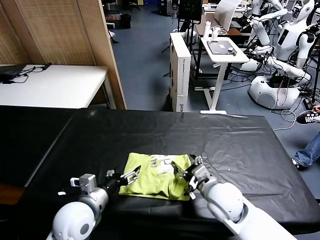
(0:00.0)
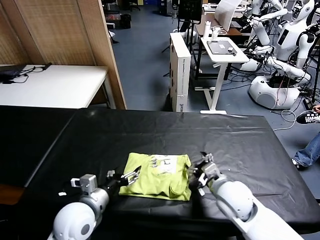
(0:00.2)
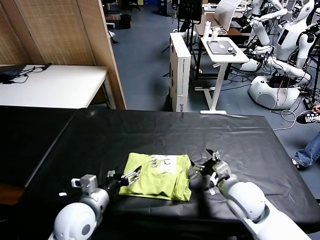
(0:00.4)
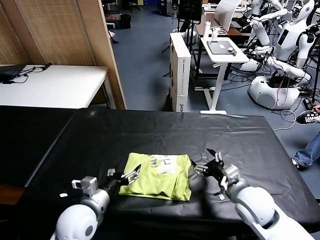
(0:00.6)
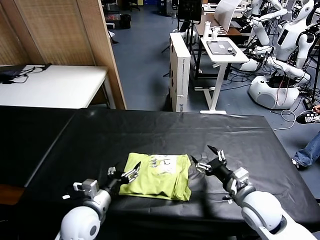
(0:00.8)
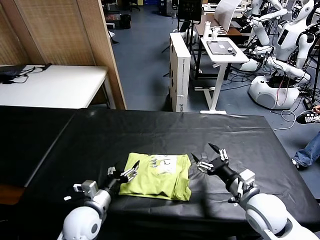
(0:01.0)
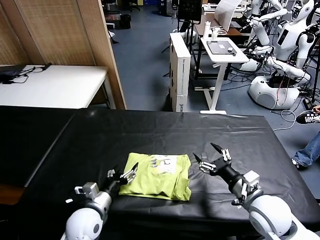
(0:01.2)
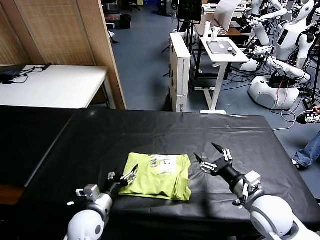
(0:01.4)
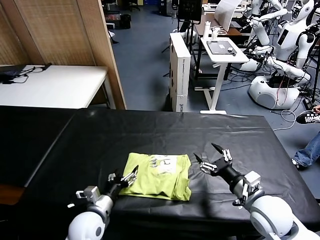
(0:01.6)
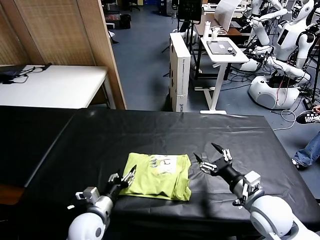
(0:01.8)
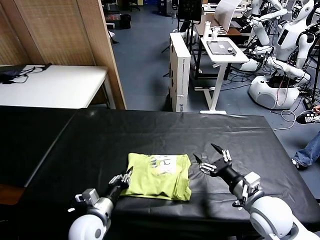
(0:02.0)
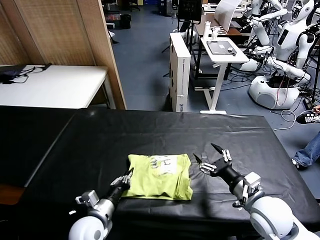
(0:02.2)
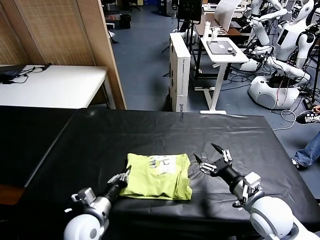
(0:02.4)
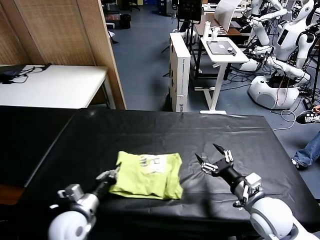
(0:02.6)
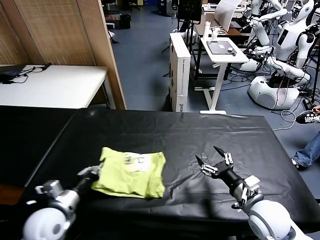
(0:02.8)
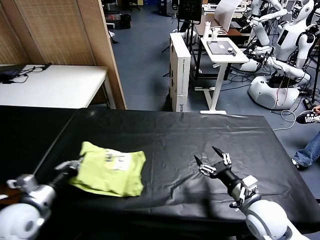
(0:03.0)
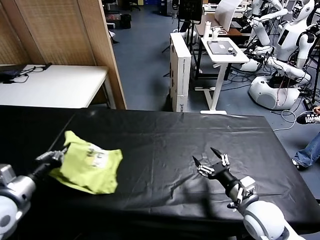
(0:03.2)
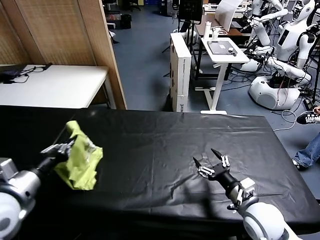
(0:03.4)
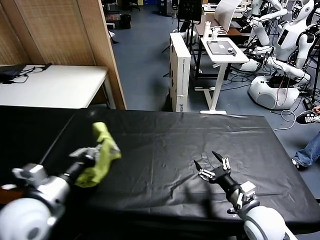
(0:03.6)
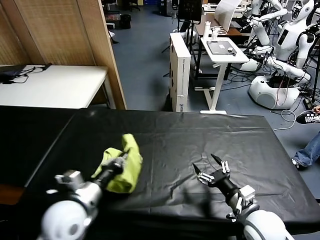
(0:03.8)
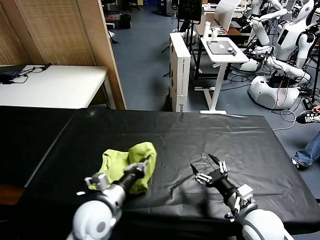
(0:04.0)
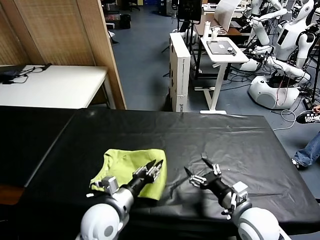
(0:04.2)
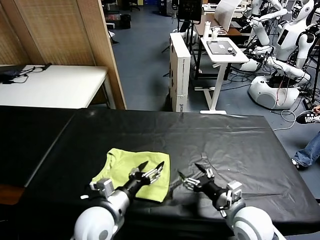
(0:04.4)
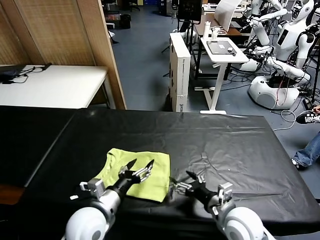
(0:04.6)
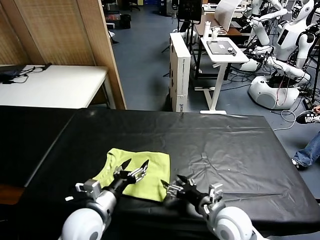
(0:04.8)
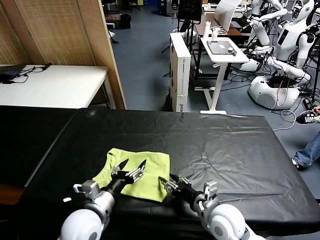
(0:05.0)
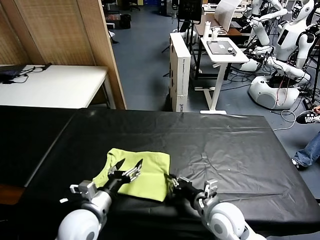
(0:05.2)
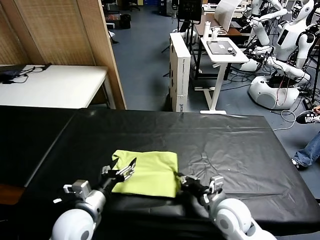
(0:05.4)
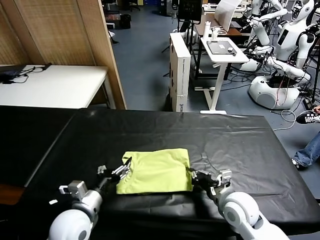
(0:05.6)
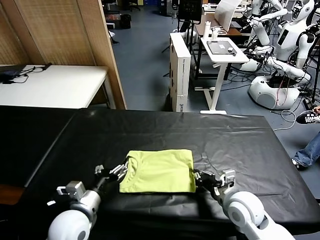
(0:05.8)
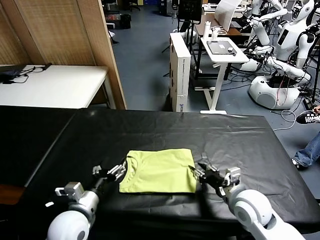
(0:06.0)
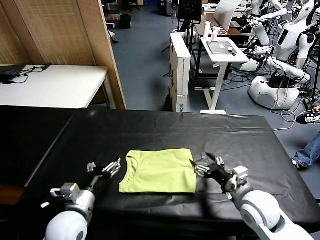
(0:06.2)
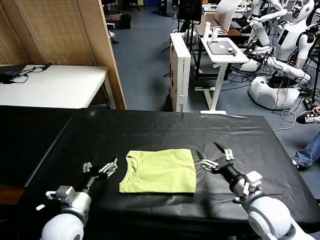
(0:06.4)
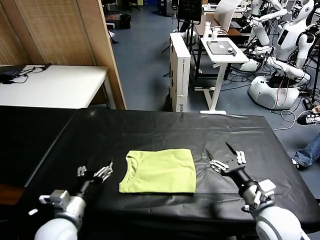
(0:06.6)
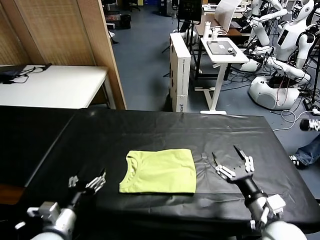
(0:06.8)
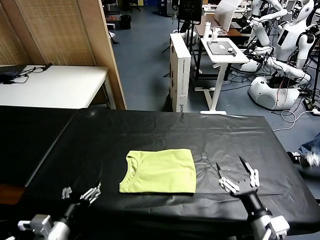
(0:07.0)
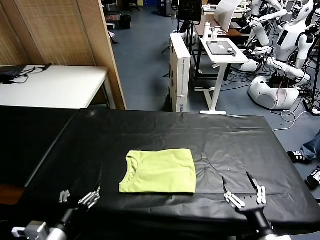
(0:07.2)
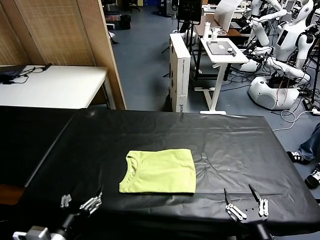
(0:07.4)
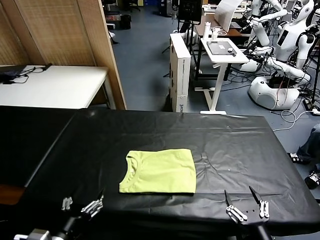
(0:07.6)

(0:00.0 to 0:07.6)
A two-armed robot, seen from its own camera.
Task of the whole recording: fold and organize the clothes.
Step, 0:00.0 - 0:04.4: Flip the folded clothes over with left gripper.
Step, 0:04.6 - 0:06.0: Drag the clothes to the center of the table.
0:00.0 - 0:01.6: The left gripper heads downward, covering some 10 cm. The right gripper heads to the right, covering roughly 10 cm.
0:01.6 - 0:03.0: The left gripper moves to the left and upward, some 20 cm, and closes.
0:03.0 - 0:04.6: The right gripper moves to the left, roughly 5 cm; the left gripper shifts approximately 15 cm to the right, and opens.
0:04.6 - 0:06.0: The left gripper moves to the left, some 5 cm. The right gripper ends up approximately 5 cm from where it was, and closes its fingers.
0:06.0 - 0:07.6: The left gripper shifts roughly 10 cm backward, while the right gripper is displaced backward by about 20 cm, and opens up.

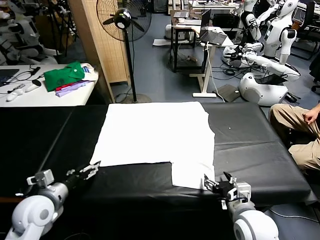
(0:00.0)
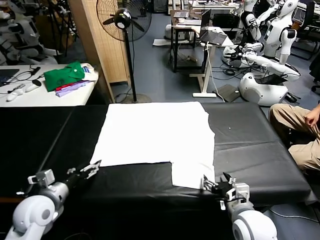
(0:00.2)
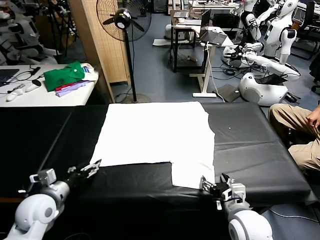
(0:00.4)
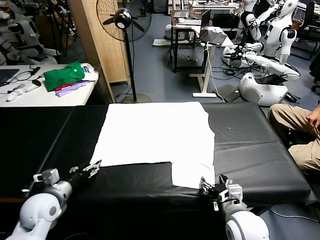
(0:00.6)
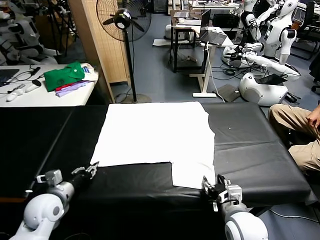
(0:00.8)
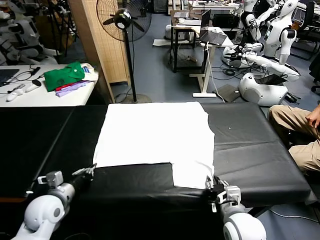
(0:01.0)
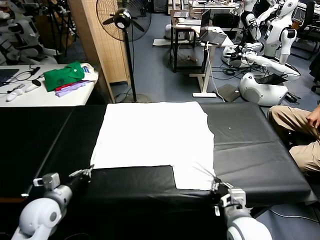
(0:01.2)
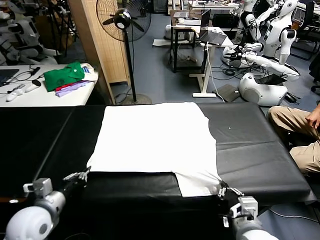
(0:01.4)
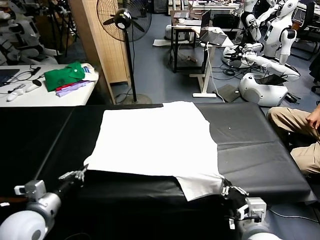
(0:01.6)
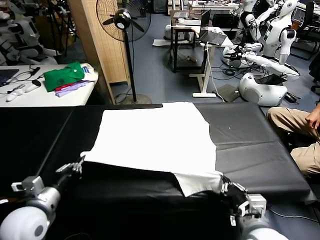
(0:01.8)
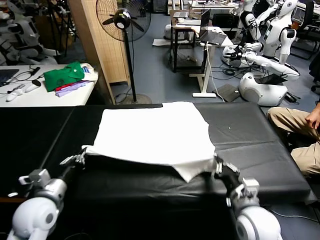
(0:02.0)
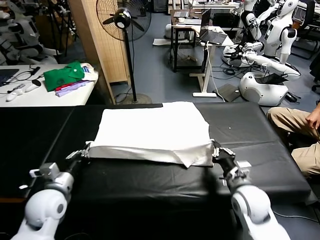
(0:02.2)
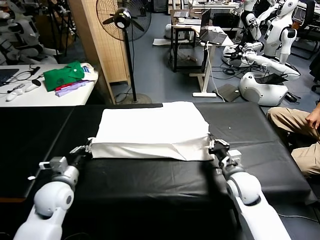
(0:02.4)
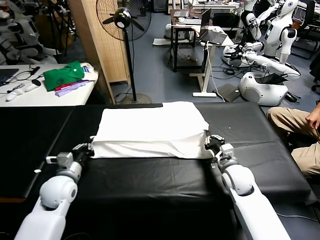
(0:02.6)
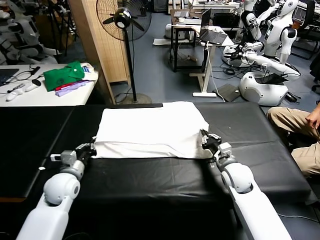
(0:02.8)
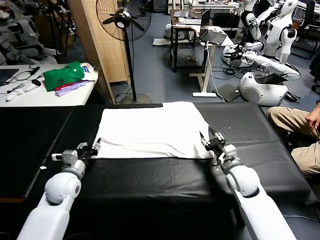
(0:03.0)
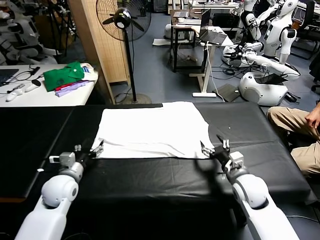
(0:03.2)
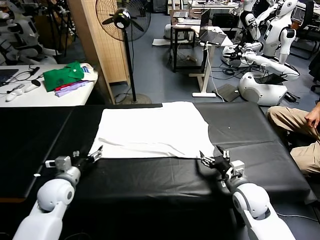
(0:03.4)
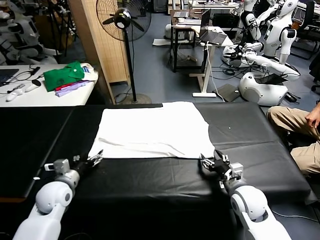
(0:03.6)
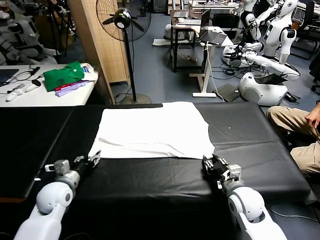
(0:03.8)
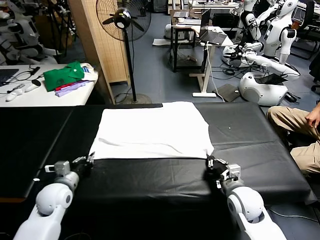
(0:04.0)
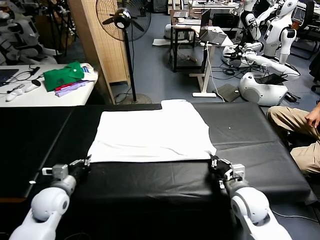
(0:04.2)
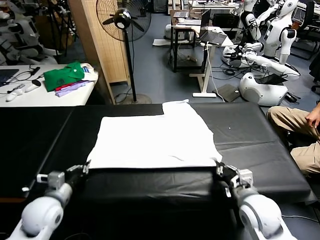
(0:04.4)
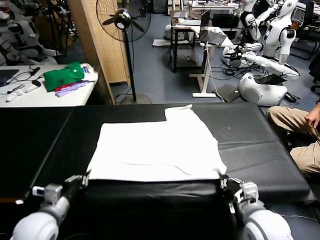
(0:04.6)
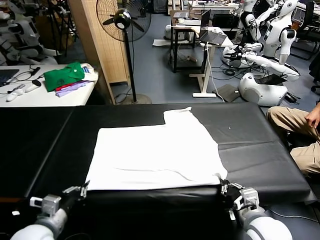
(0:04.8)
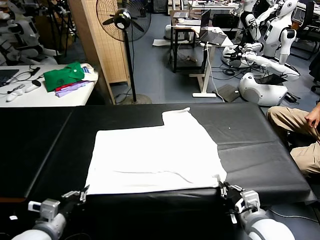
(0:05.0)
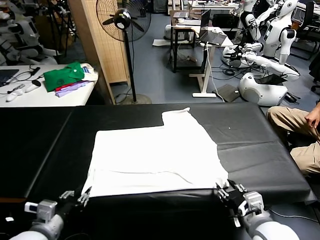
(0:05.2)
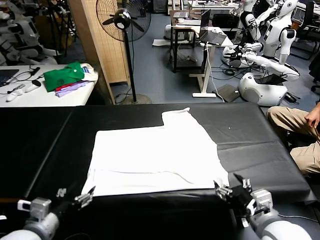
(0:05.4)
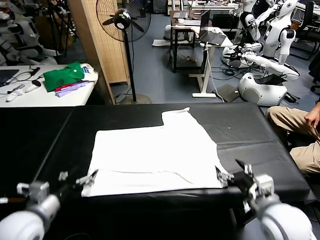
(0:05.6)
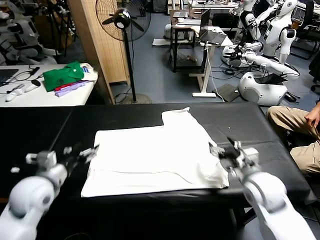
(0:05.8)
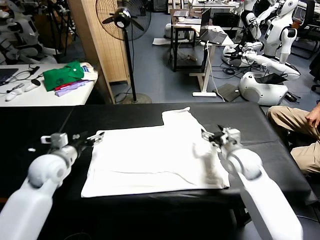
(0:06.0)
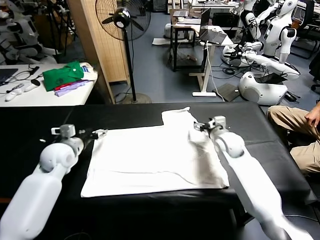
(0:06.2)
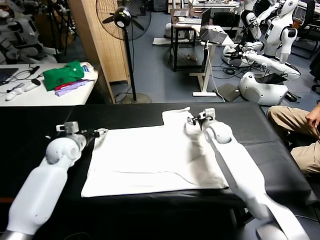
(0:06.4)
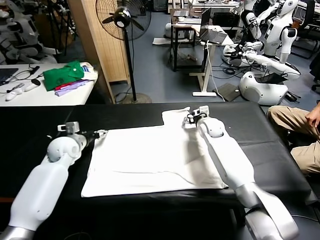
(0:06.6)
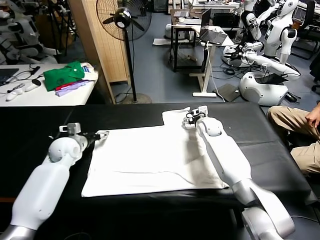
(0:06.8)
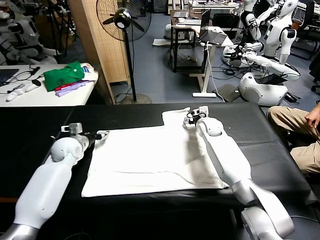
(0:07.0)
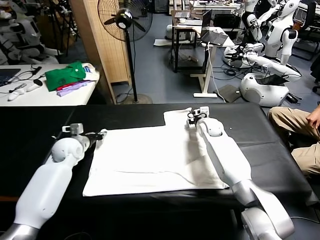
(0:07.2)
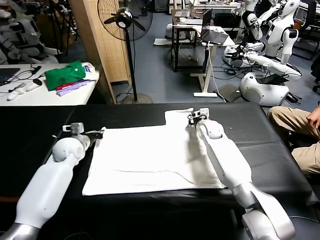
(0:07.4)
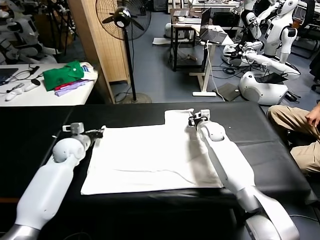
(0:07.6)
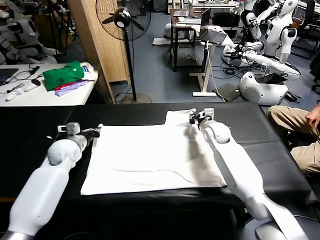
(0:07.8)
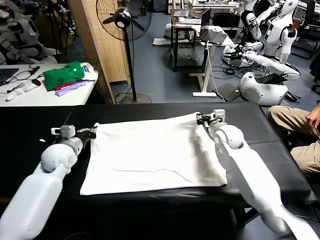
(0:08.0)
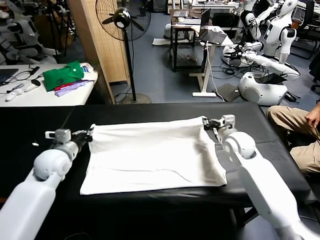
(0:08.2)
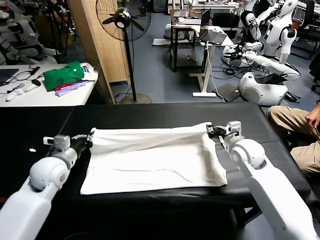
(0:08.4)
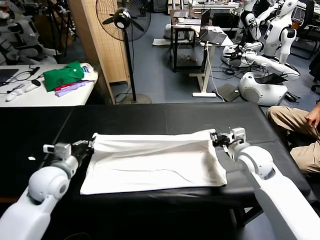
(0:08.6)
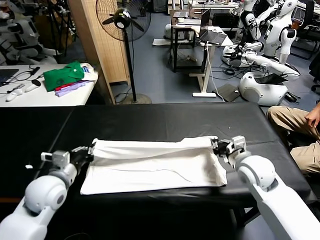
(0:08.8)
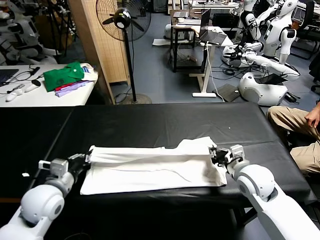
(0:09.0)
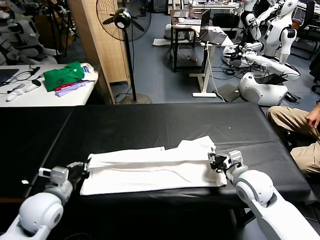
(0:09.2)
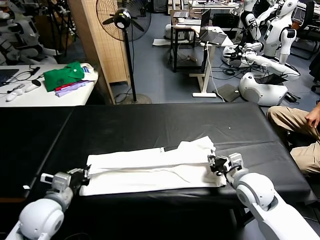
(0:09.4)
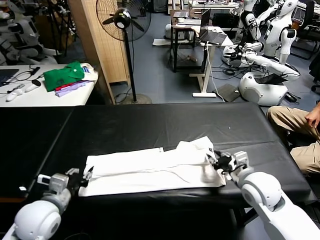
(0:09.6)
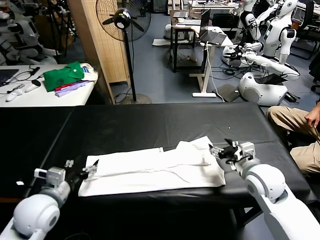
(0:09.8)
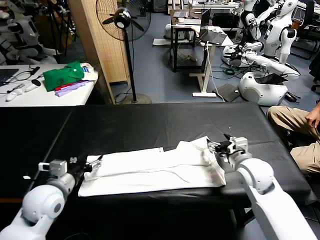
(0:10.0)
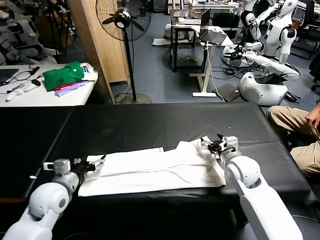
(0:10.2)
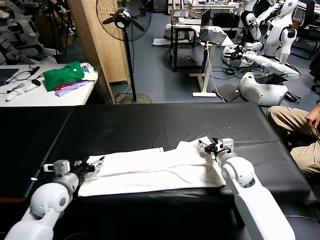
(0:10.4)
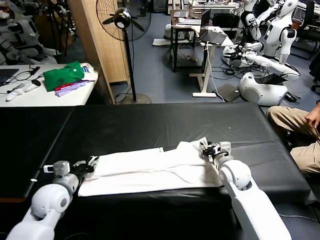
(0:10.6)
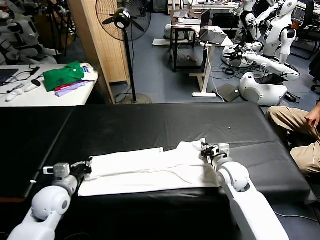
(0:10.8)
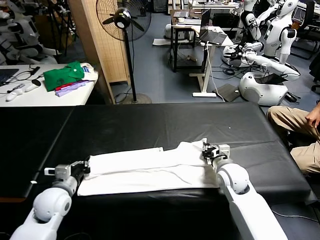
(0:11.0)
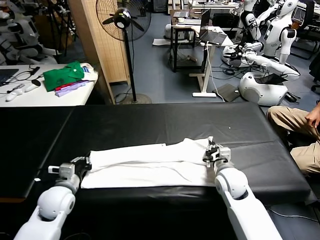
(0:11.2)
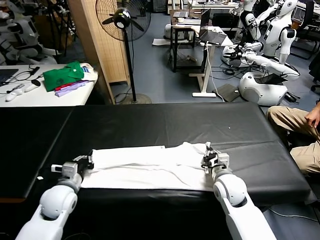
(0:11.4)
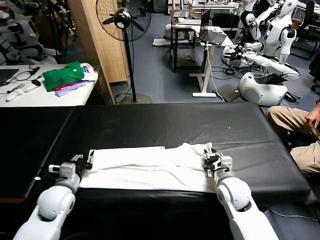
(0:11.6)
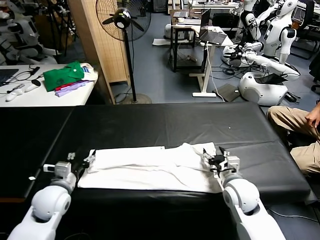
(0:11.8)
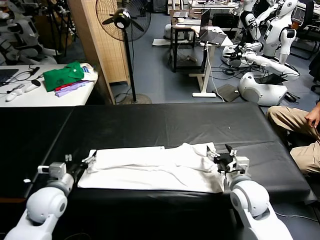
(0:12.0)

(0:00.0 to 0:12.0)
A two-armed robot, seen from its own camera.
Task of the whole recording: fold and organize the clothes.
Step, 0:00.0 - 0:01.0: use both grippers simultaneously to clamp the lower edge of the clothing fabric.
Step, 0:01.2 - 0:02.8: use both grippers to drag the lower edge of the fabric forward and fold it over the upper edge.
Step, 0:03.0 - 0:05.0: Drag the clothes downward with both gripper.
Step, 0:05.4 - 0:07.4: use both grippers simultaneously to clamp the upper edge of the clothing fabric.
Step, 0:07.6 - 0:09.4: use both grippers to drag the upper edge of the fabric backward and fold it over the lower edge.
0:01.6 - 0:03.0: Both grippers move forward and downward, some 20 cm. The right gripper opens its fingers. The left gripper opens.
0:03.0 - 0:04.4: Both grippers move backward, approximately 10 cm. The left gripper closes its fingers, while the right gripper closes up.
0:04.4 - 0:06.0: The left gripper is displaced forward and upward by about 15 cm, and opens up. Meanwhile the right gripper travels forward by approximately 20 cm, and opens its fingers.
0:06.0 - 0:07.6: The right gripper is displaced forward by approximately 10 cm, and closes its fingers, while the left gripper moves forward and downward, approximately 10 cm, and closes up.
0:07.6 - 0:09.0: Both grippers travel together backward, approximately 20 cm.
0:09.0 - 0:10.4: The left gripper opens its fingers. Meanwhile the right gripper goes some 5 cm forward, and opens its fingers.
0:10.4 - 0:12.0: The left gripper closes and opens again; the right gripper shifts roughly 10 cm backward, and opens up.

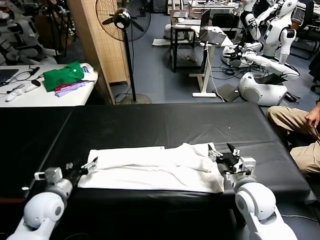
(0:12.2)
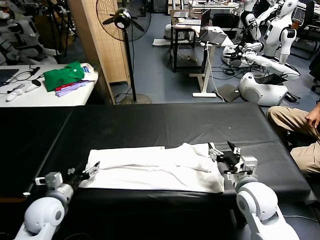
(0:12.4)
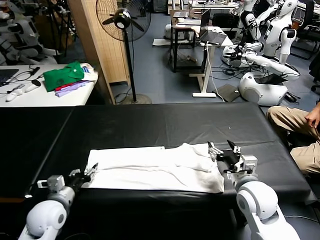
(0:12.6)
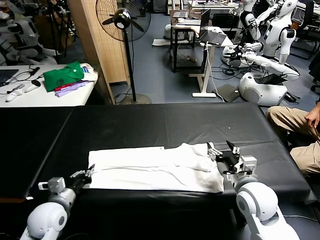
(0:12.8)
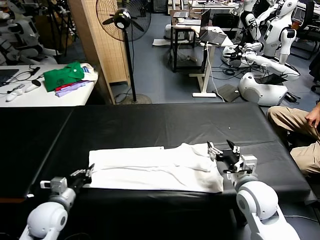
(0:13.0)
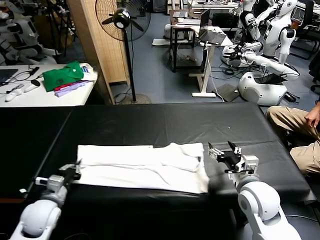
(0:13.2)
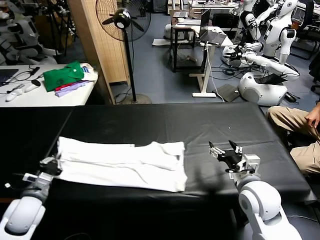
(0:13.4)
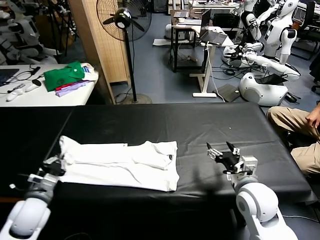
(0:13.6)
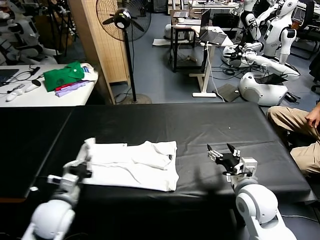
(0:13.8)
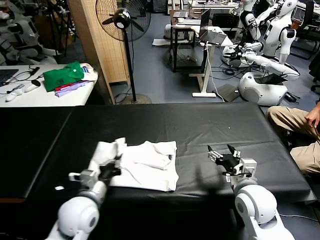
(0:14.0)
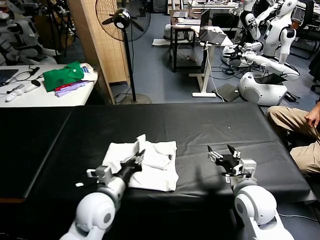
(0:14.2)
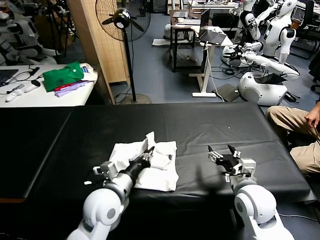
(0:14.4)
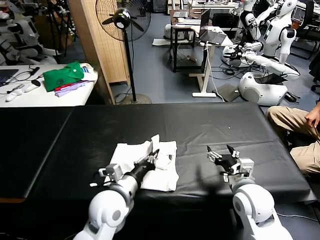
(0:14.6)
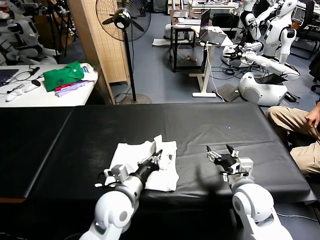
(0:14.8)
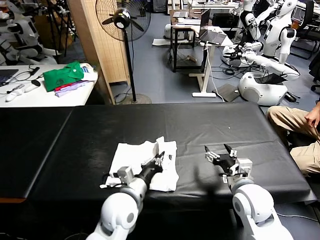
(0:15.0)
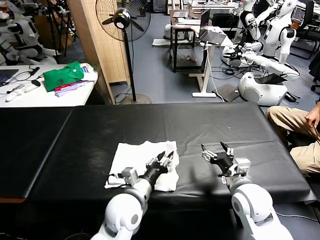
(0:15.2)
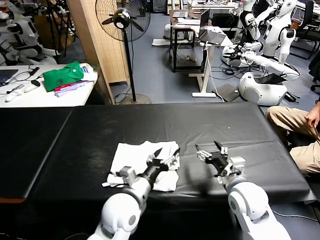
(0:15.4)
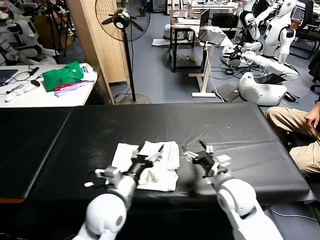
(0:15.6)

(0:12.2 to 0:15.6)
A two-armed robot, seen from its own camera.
Task of the whole recording: fold and organize the clothes.
Step, 0:13.2 - 0:15.2: use the left gripper to drag the left edge of the fabric to the left and folds it over the right edge.
0:12.2 - 0:13.8: The left gripper closes.
0:13.8 - 0:15.6: The left gripper is displaced to the right by roughly 20 cm, and opens up; the right gripper changes place by about 5 cm.
